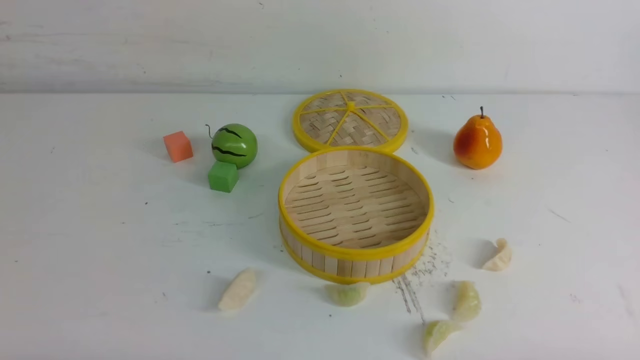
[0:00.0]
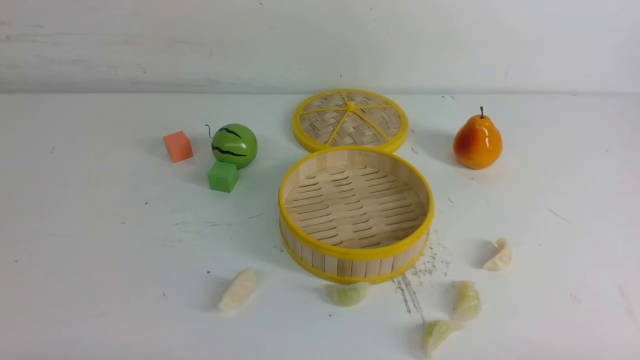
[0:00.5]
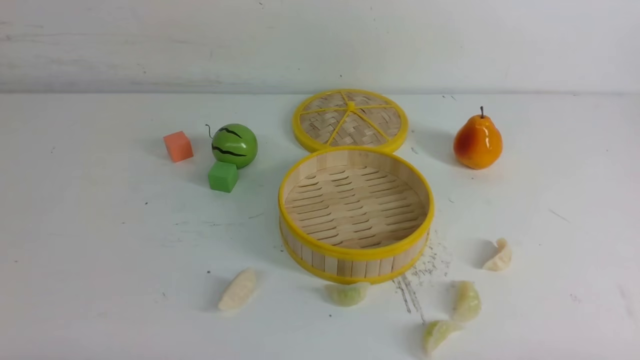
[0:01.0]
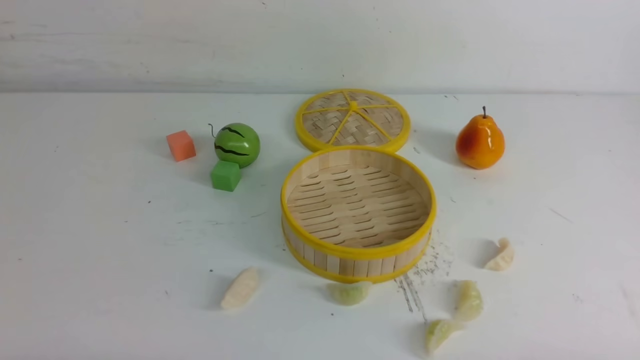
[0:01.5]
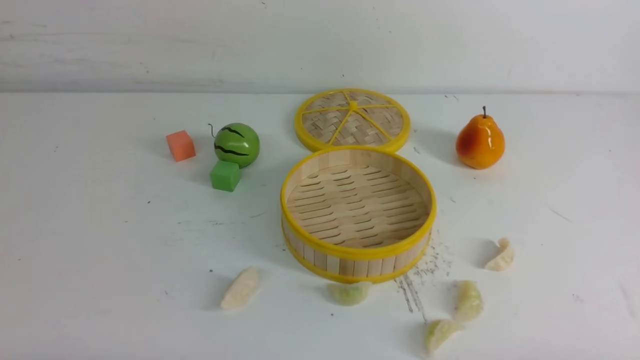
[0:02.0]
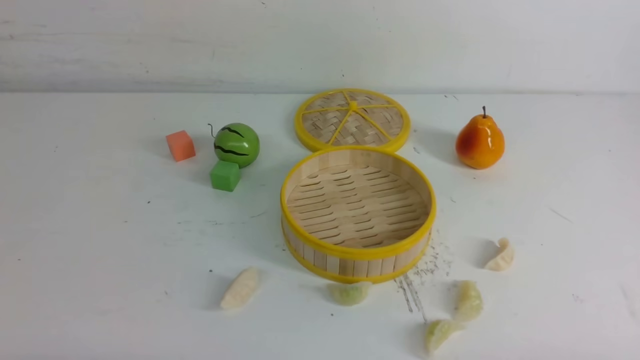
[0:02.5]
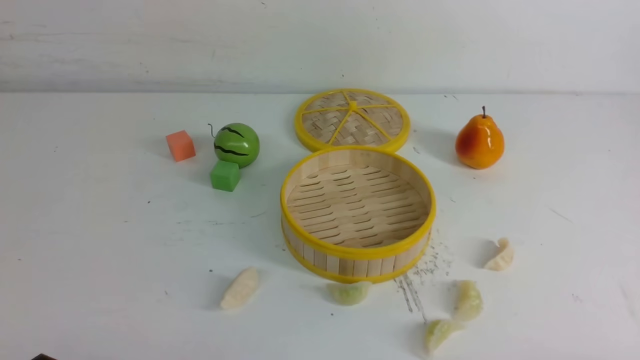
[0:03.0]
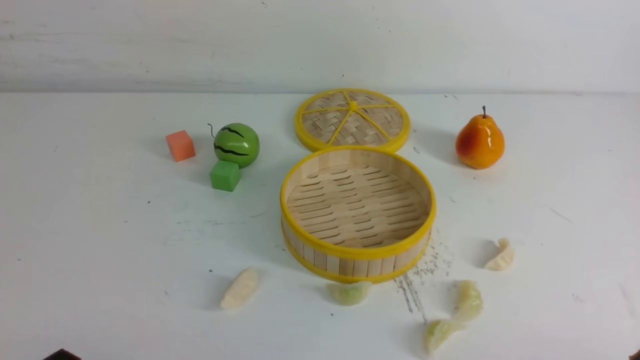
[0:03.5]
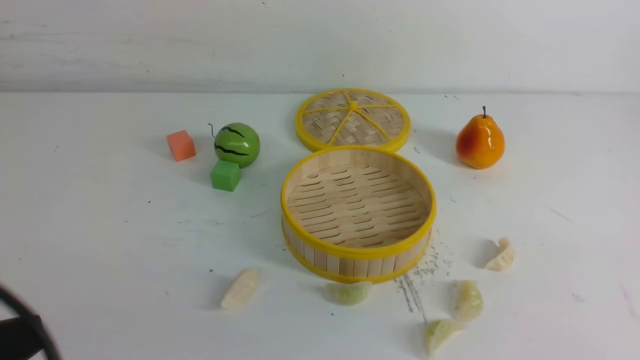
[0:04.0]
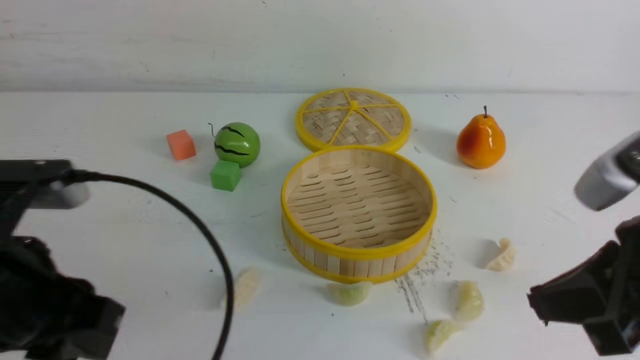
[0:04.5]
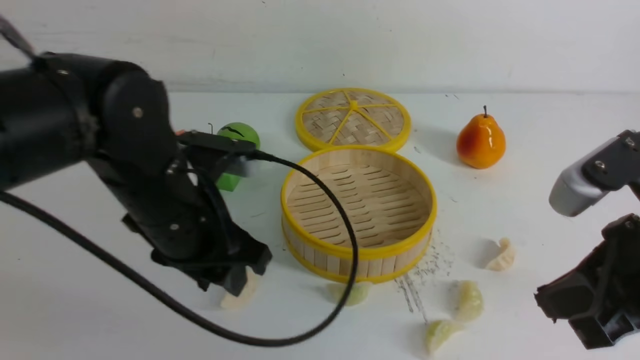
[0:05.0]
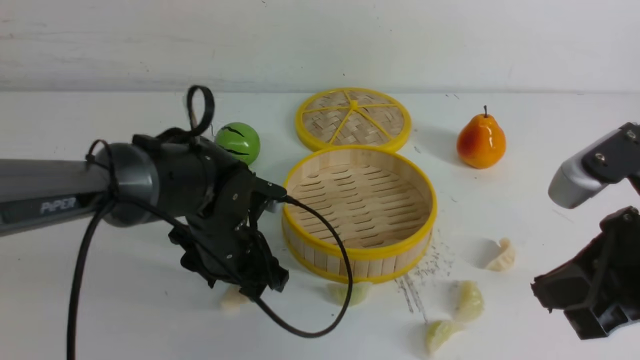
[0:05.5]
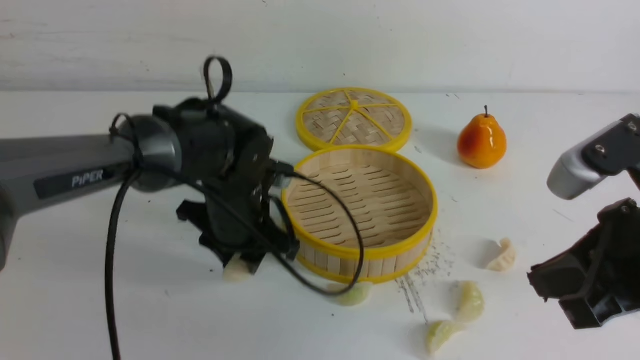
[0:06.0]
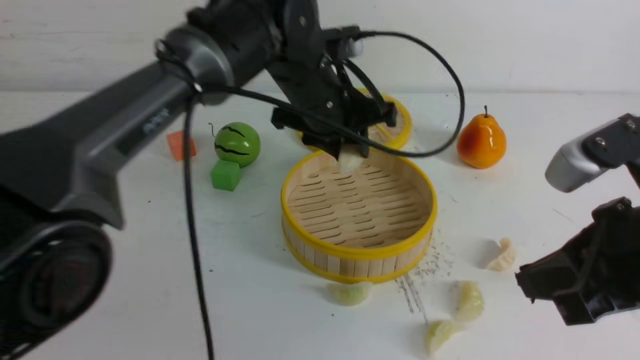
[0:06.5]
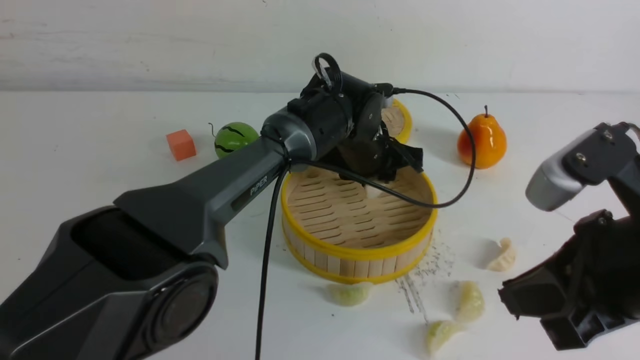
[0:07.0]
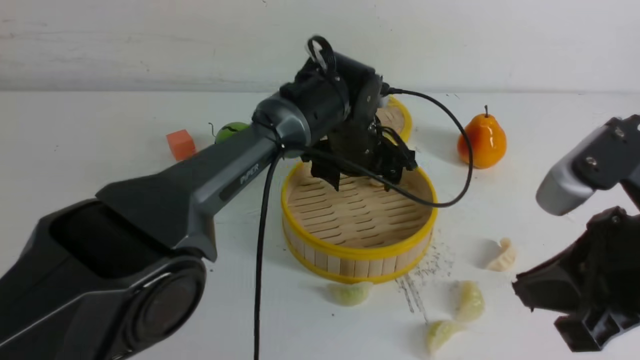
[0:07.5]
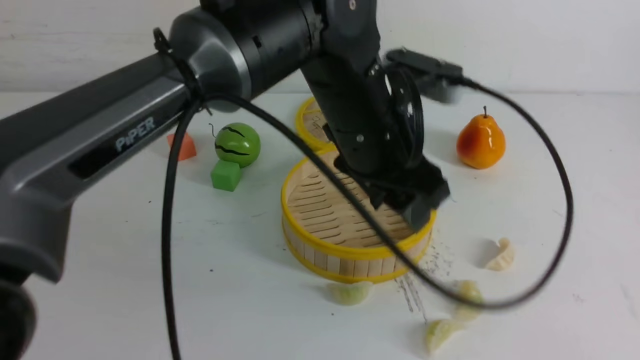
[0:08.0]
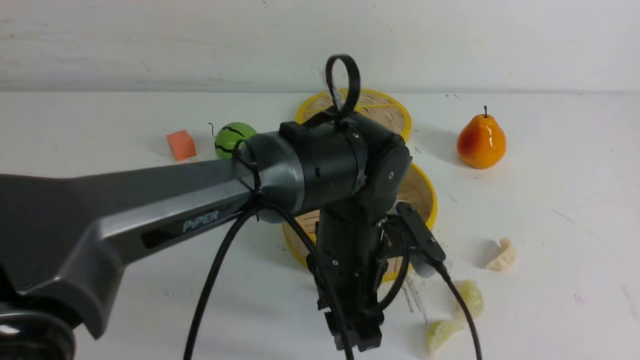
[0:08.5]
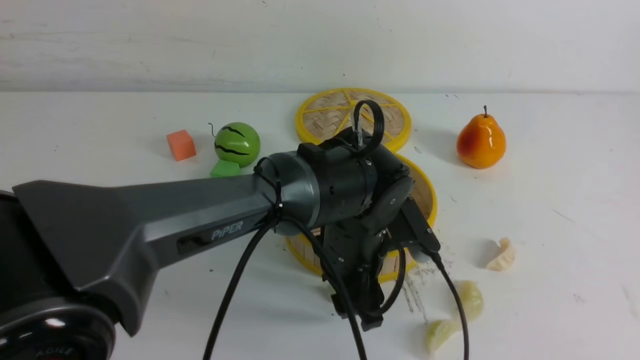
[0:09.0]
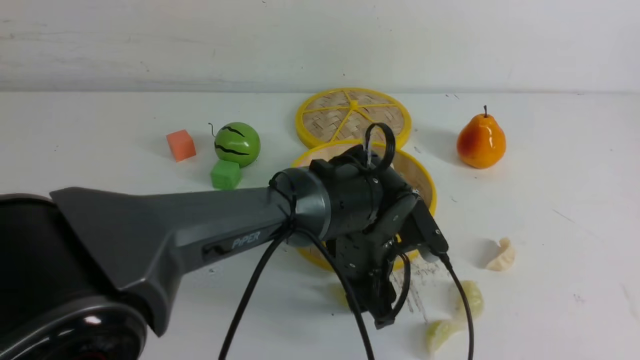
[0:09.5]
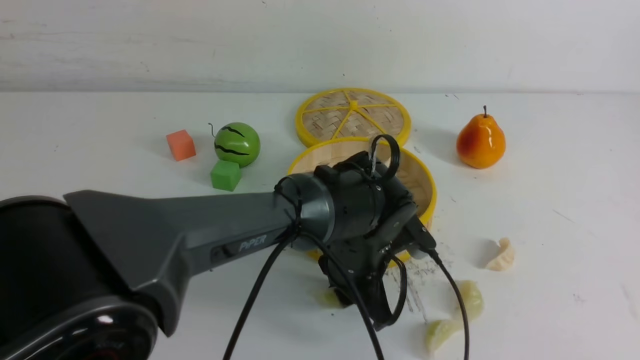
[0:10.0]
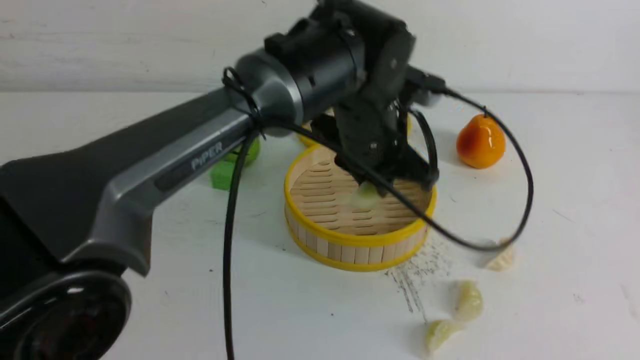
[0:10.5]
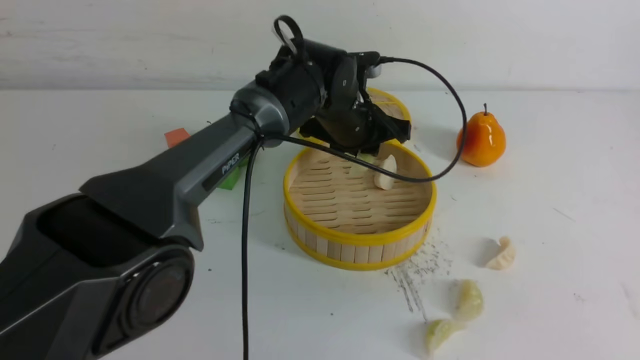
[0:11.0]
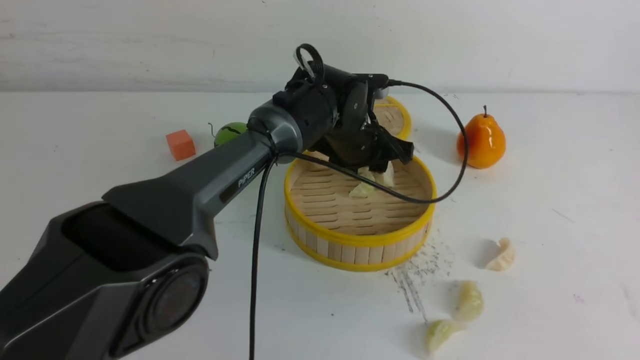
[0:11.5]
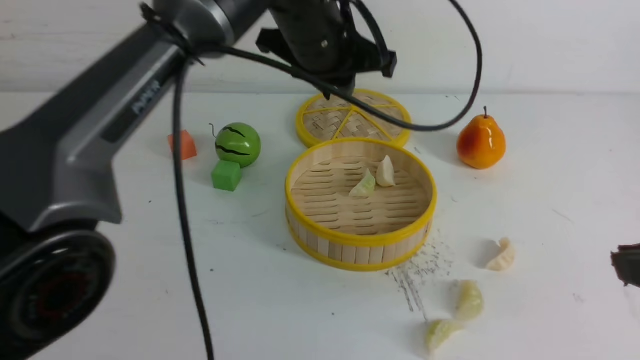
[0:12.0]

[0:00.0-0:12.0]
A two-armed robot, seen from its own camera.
Task of the whole recording: put the dumplings into the steamer on the white table.
Step, 0:00.0 to 0:05.5: use the left arm to grab a dumpling.
Step, 0:06.0 to 0:07.5: use the left arm to put the dumpling into the steamer.
Step, 0:08.0 to 0:09.5: use the left arm to grab a dumpling.
Step, 0:10.0 to 0:11.5: use the left arm to put the dumpling into the steamer.
0:00.0 to 0:02.0: Both grippers stay put.
0:02.0 to 0:04.0: The left gripper shifts roughly 15 cm upward.
0:04.0 to 0:06.0: The right gripper moves forward and to the left, some 10 cm. The left gripper shifts some 35 cm forward and to the right, and opens and closes again.
0:06.0 to 0:08.0: The right gripper moves backward and upward, about 10 cm. Meanwhile the left gripper is displaced to the right and upward by roughly 15 cm, reaches roughly 10 cm forward, then returns, and opens its fingers.
0:08.0 to 0:10.0: The left gripper travels downward by about 15 cm, and closes its fingers.
0:10.0 to 0:12.0: The left gripper goes up and down, roughly 20 cm each way, reversing 2 times; the right gripper ends up roughly 5 cm from where it was.

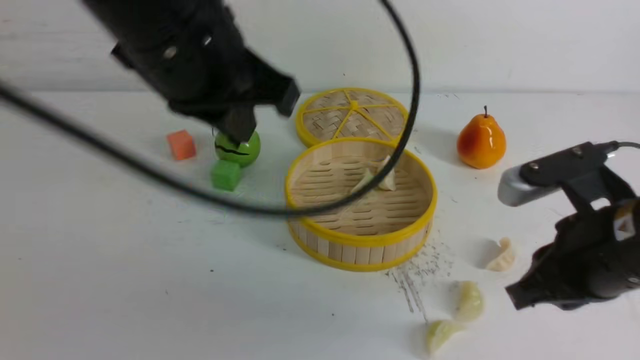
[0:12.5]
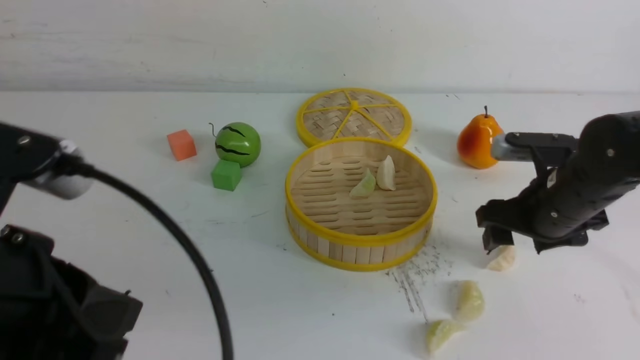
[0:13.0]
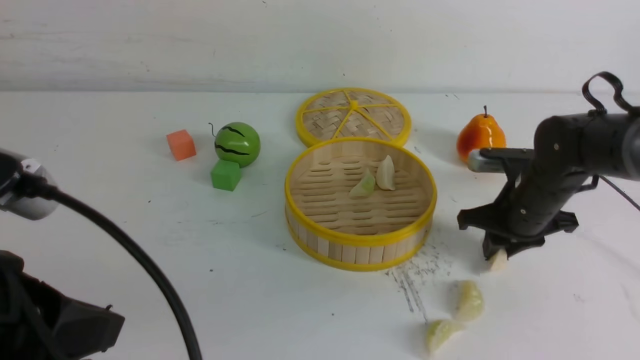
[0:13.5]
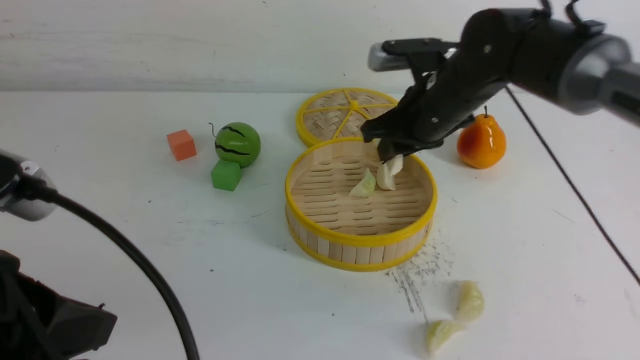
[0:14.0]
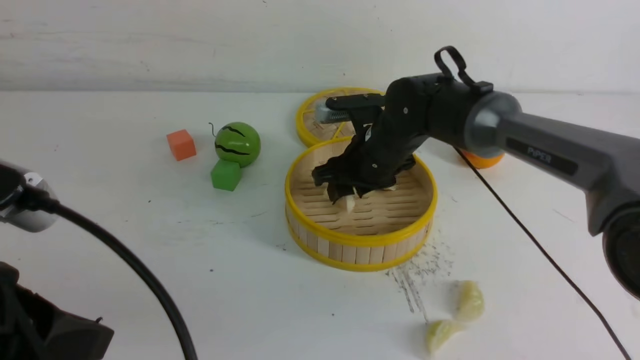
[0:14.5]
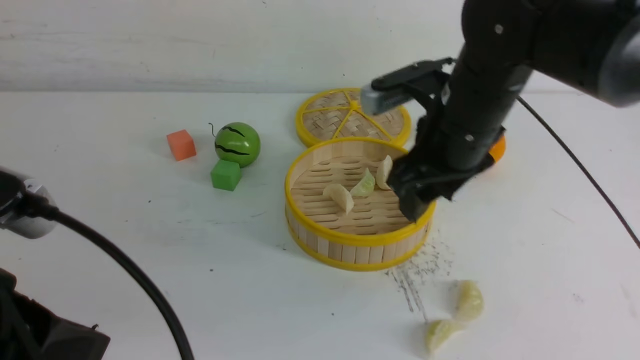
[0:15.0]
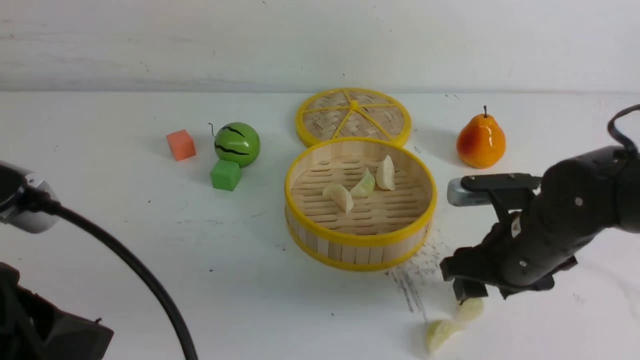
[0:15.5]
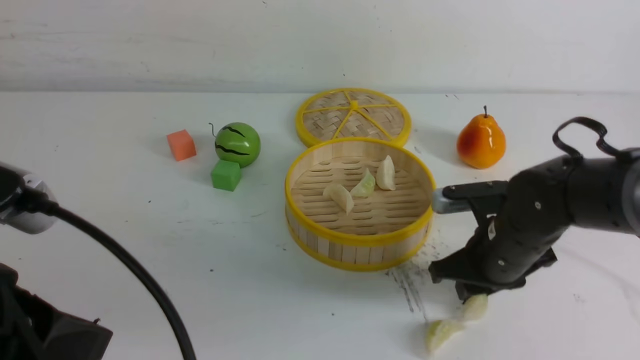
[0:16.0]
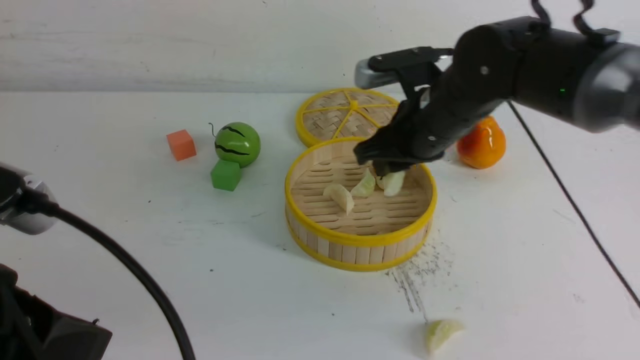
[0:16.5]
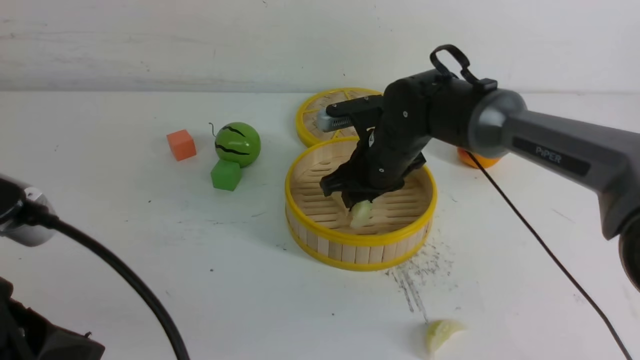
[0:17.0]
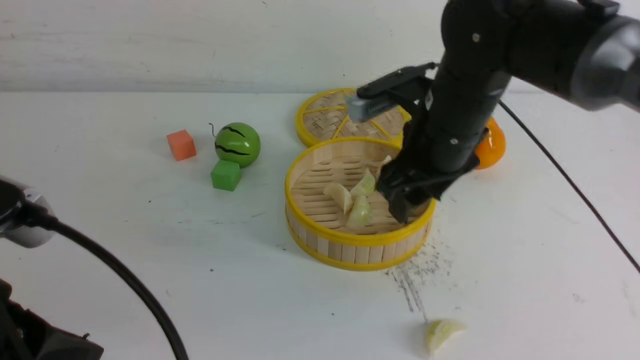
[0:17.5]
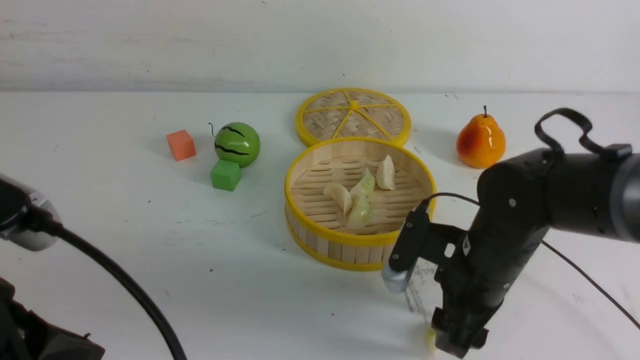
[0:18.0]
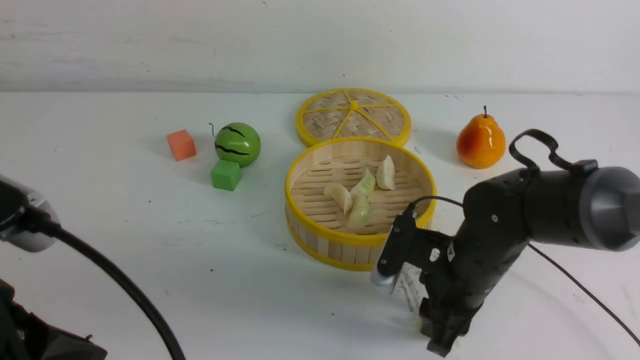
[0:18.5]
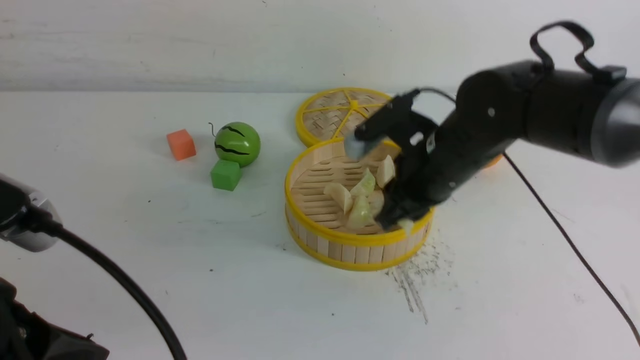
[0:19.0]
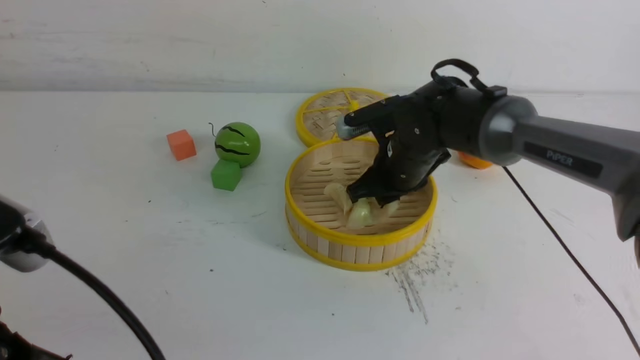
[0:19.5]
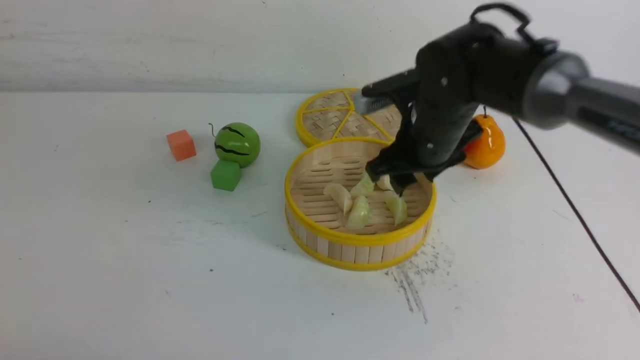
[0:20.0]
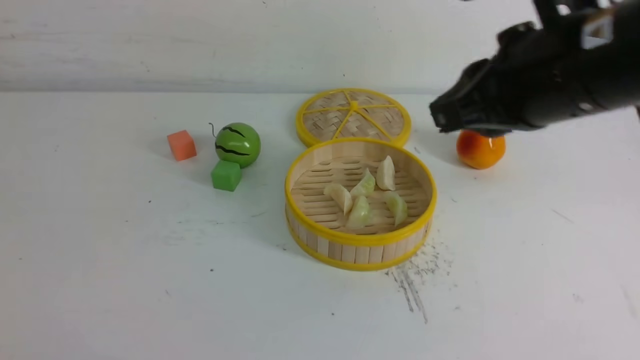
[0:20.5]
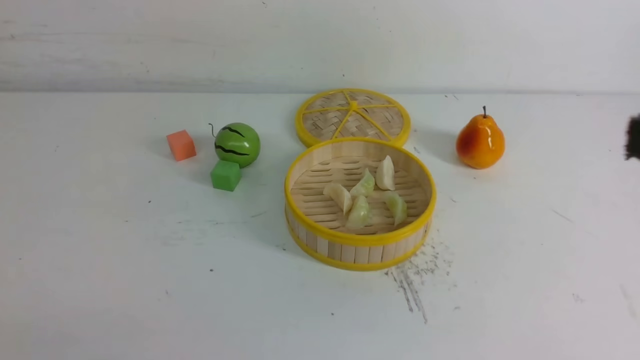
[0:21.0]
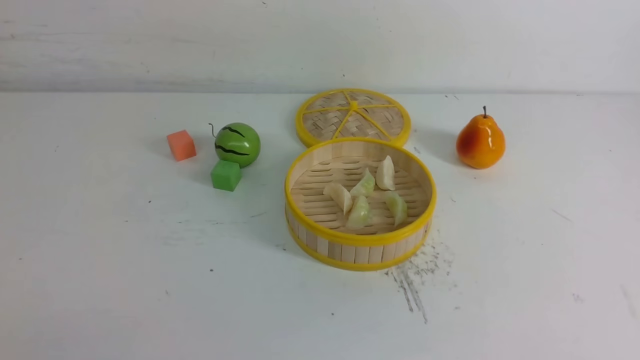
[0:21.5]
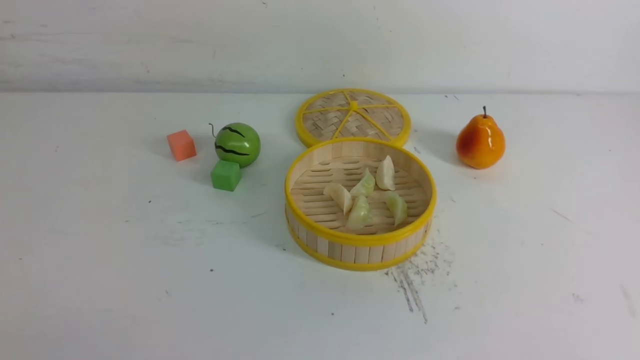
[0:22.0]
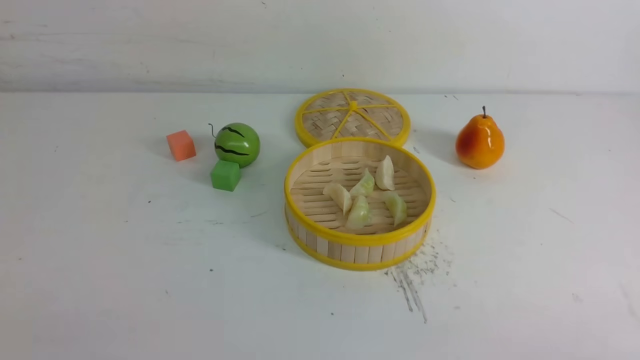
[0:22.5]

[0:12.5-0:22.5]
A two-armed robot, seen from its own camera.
Task of the whole recording: put the dumplings into the steamer on the white table.
Step, 0:12.5 to 0:13.5: use the right arm to grab a dumpling.
Step, 0:14.0 to 0:14.5: use the right arm to put the dumpling into the steamer.
Step, 0:15.0 to 0:16.0: use the right arm to grab a dumpling.
Step, 0:16.5 to 0:17.0: use the right arm to put the dumpling into the steamer.
Step, 0:17.5 to 0:18.5: use the right arm to grab a dumpling.
Step, 0:19.0 to 0:19.5: use the right arm to put the dumpling into the steamer.
0:12.5 to 0:14.5: The left gripper travels backward, to the left and downward by some 20 cm. The right gripper moves forward and to the left, roughly 25 cm, and opens its fingers.
0:14.5 to 0:16.5: The right gripper reaches some 15 cm backward, then returns, and closes up.
0:16.5 to 0:18.5: The right gripper moves downward and backward, approximately 15 cm, and opens and closes again.
0:18.5 to 0:20.5: The left gripper goes roughly 10 cm backward and to the left; the right gripper heads upward, covering some 25 cm, and closes.
0:20.5 to 0:22.5: The right gripper goes approximately 30 cm backward, downward and to the right.
